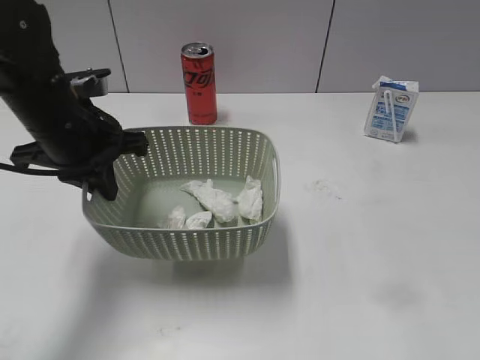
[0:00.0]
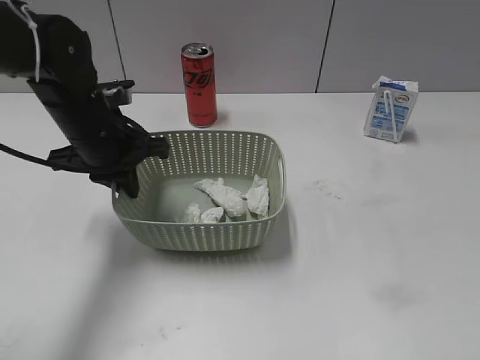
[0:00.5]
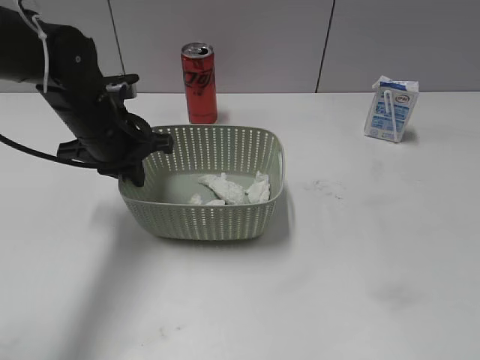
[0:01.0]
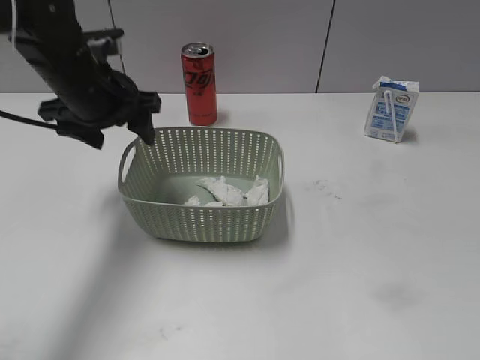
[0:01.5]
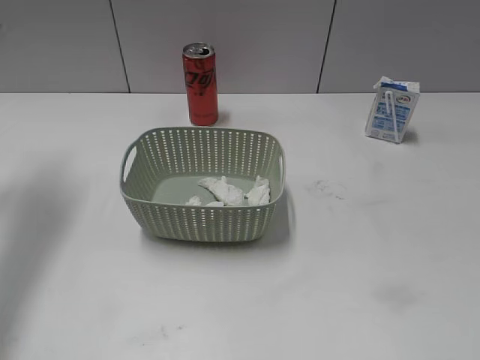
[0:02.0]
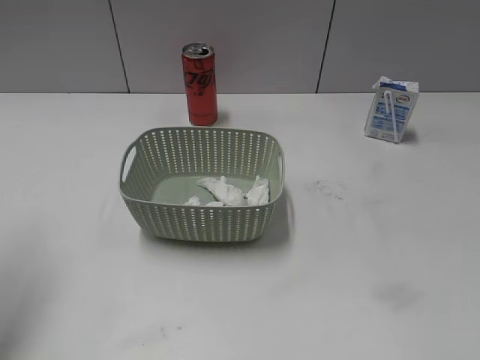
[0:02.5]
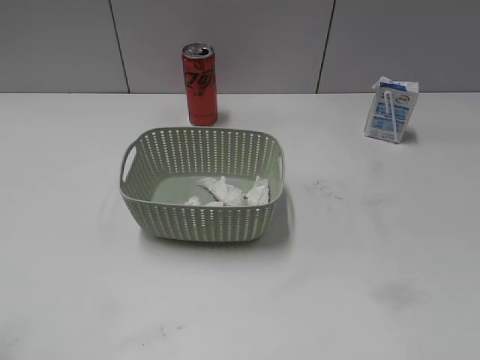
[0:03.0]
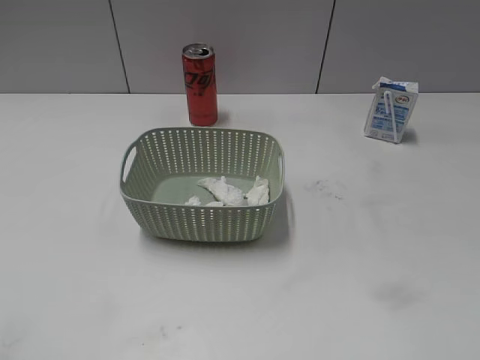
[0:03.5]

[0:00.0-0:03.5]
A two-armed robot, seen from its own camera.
Step, 0:00.0 to 0:01.5: Place the basket on the table with left gripper.
0:00.0 to 0:02.0: The right gripper moves backward, about 15 cm. Meanwhile the left gripper moves to the left, upward and forward, some 20 cm, and opens.
0:02.0 to 0:03.5: The left gripper is displaced backward by roughly 35 cm.
